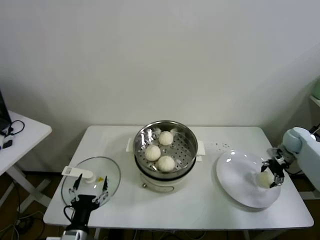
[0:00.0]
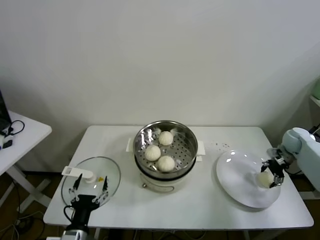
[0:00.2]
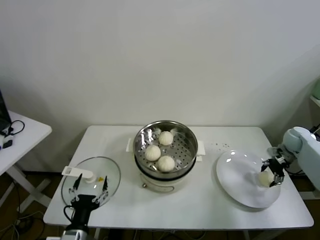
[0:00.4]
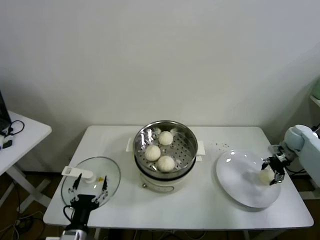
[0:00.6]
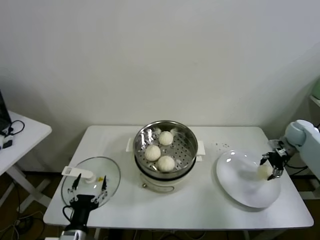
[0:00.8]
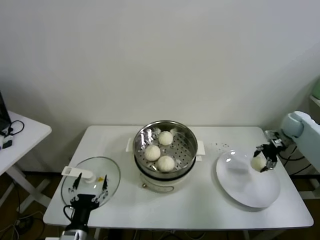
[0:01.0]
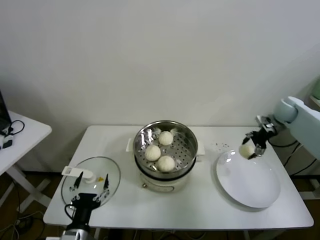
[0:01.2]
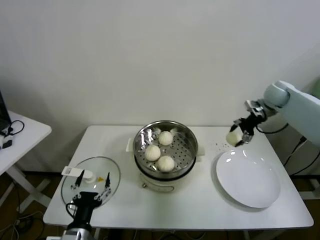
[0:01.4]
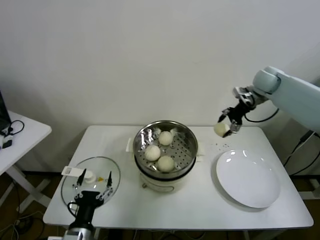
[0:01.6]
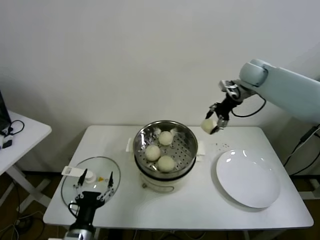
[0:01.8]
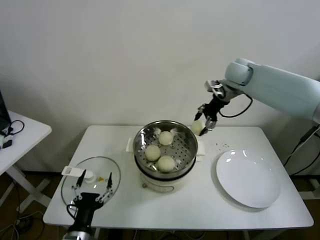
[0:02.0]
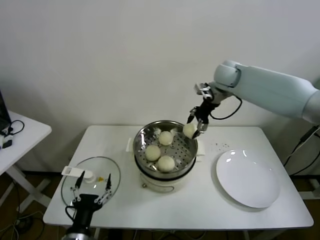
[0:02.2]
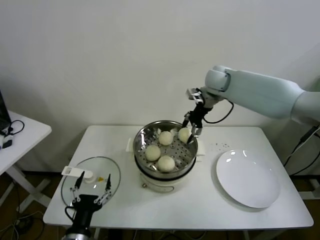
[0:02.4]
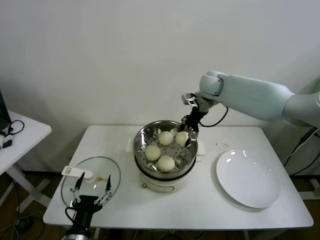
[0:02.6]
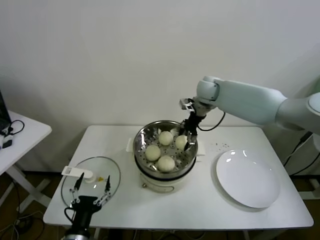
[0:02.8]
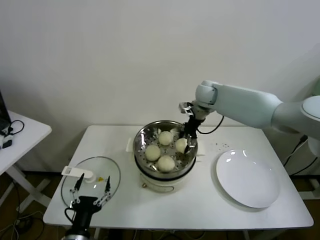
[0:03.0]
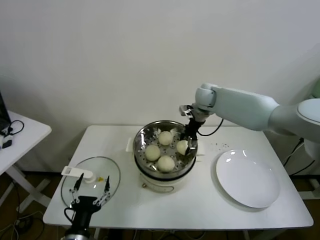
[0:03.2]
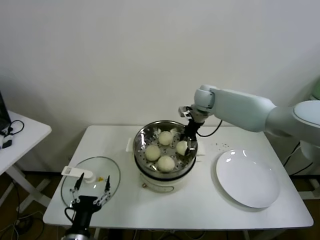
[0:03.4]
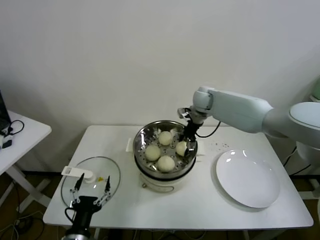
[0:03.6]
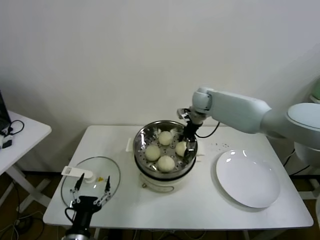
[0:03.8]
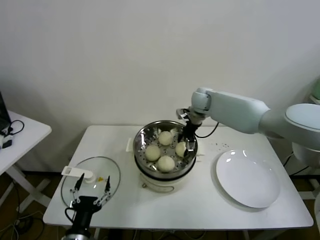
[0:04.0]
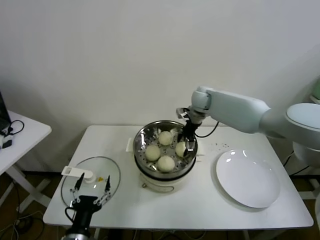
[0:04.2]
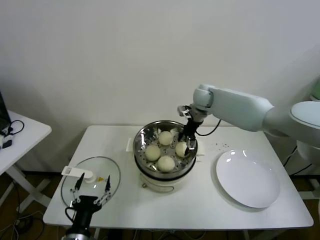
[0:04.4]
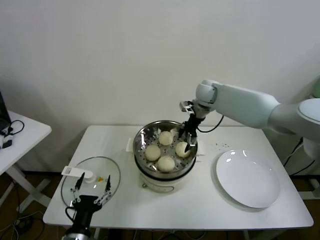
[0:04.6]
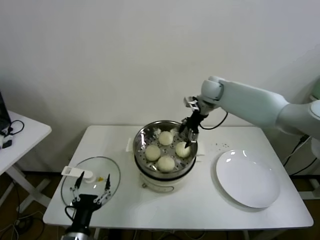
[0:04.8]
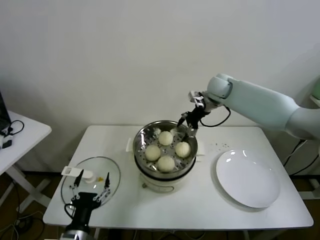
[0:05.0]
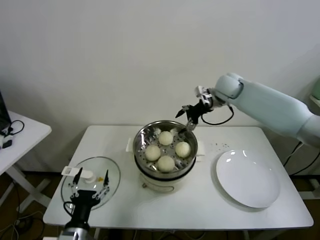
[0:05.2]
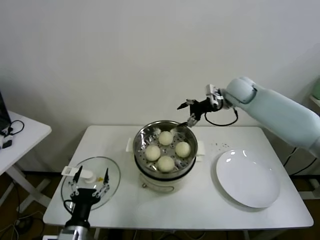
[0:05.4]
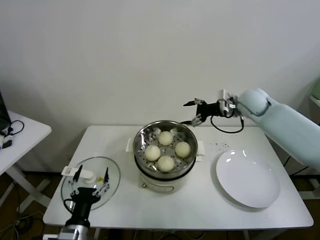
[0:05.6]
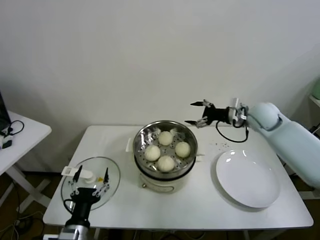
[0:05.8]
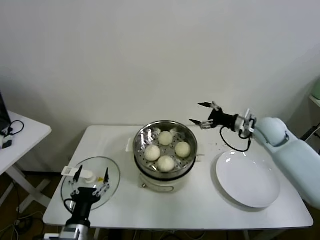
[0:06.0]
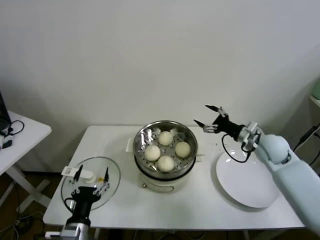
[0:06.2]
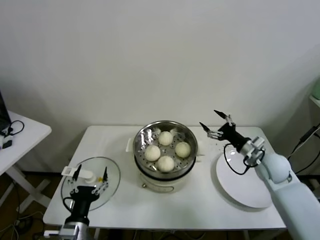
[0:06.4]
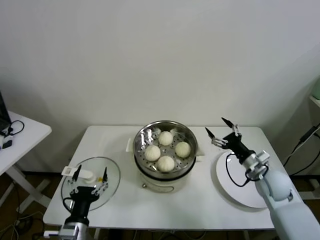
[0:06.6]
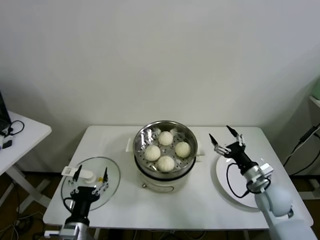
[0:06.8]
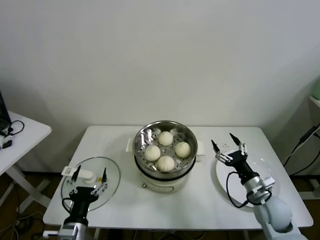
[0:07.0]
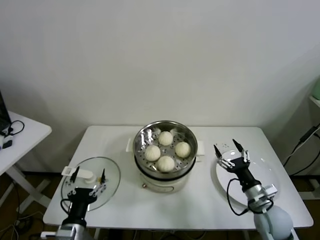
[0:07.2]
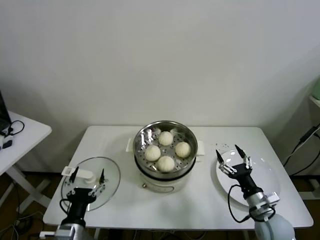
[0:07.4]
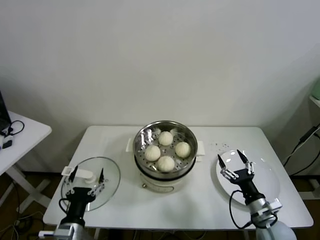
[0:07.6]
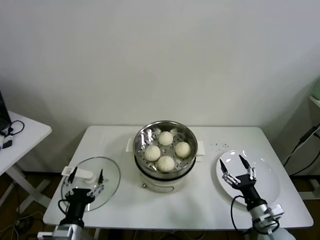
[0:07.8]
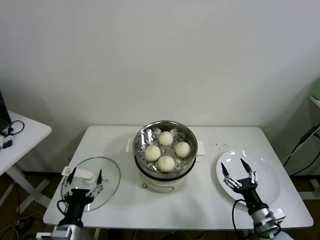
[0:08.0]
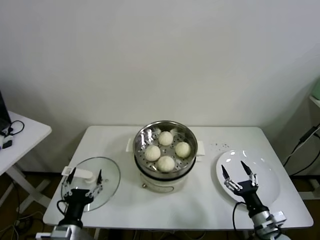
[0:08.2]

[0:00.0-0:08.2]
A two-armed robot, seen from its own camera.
Task of the whole recording: take steamed baozi put them in steamer.
Step, 0:00.4 to 0:04.6: Place the baozi on the steamer with right gripper.
0:00.0 to 0:01.6: The right gripper heads upward, to the left and forward, covering some 30 cm.
0:01.6 to 0:03.2: The right gripper moves to the left, approximately 20 cm.
0:03.2 to 0:05.0: The right gripper opens its fingers.
0:05.0 to 0:06.6: The right gripper goes some 35 cm backward, downward and to the right.
0:06.6 to 0:08.2: The right gripper is displaced backward and downward by about 20 cm.
